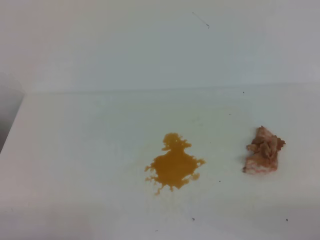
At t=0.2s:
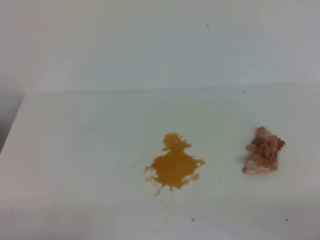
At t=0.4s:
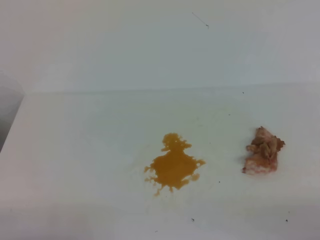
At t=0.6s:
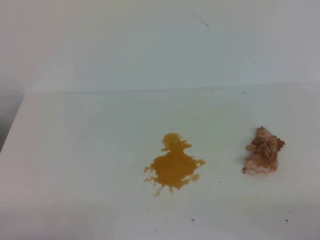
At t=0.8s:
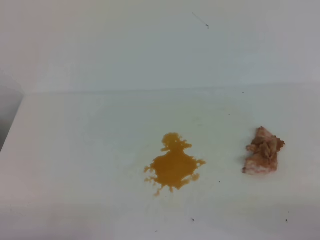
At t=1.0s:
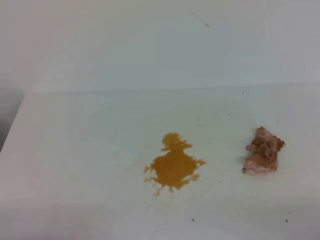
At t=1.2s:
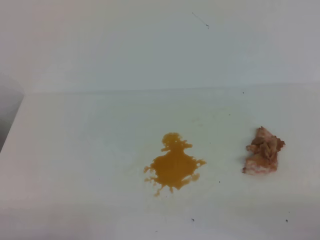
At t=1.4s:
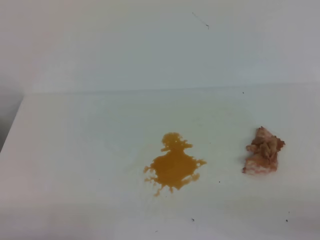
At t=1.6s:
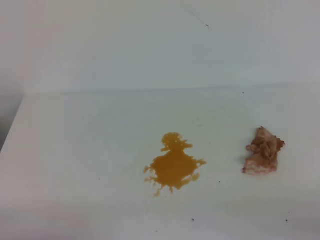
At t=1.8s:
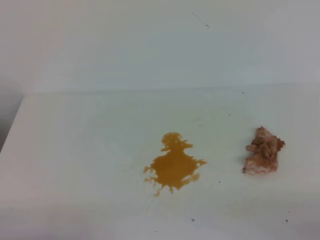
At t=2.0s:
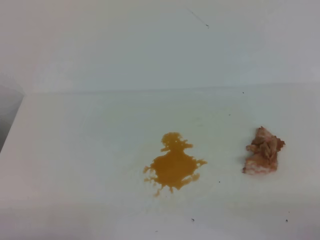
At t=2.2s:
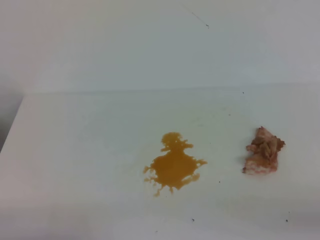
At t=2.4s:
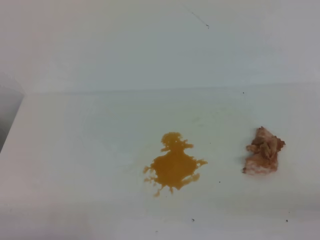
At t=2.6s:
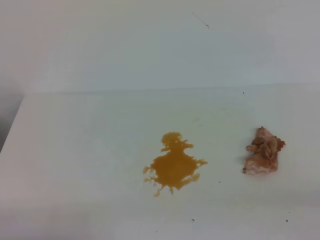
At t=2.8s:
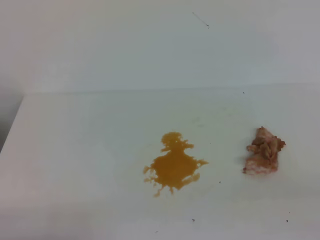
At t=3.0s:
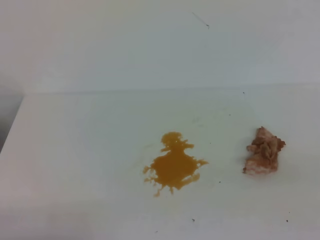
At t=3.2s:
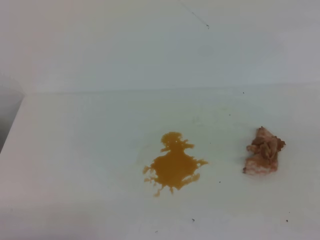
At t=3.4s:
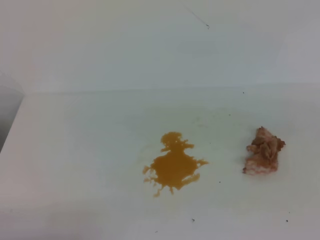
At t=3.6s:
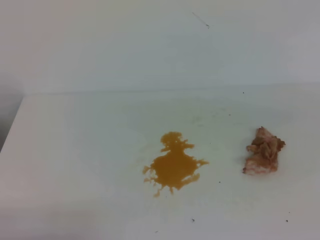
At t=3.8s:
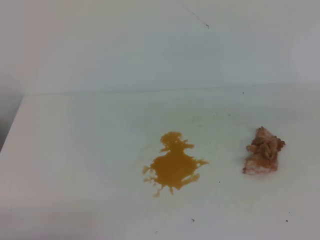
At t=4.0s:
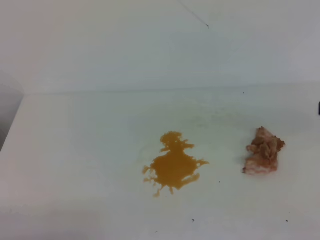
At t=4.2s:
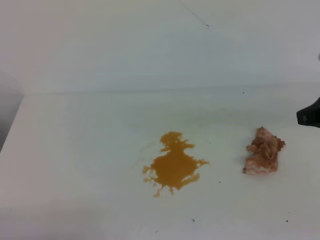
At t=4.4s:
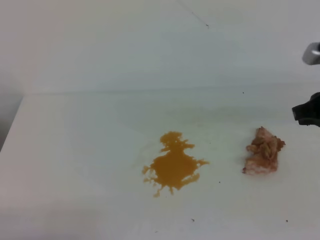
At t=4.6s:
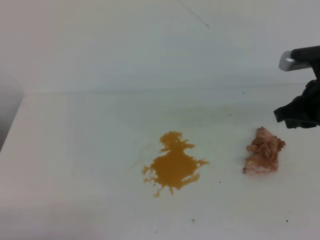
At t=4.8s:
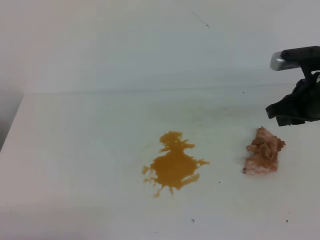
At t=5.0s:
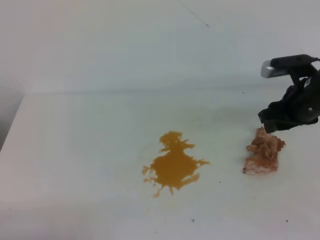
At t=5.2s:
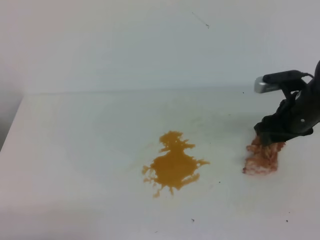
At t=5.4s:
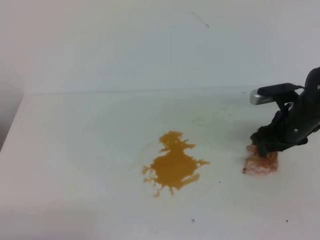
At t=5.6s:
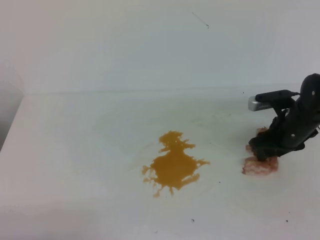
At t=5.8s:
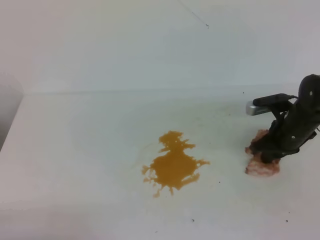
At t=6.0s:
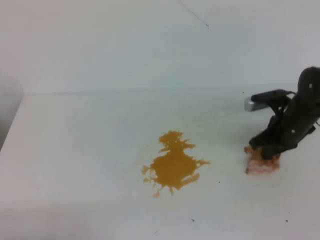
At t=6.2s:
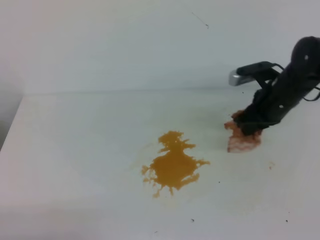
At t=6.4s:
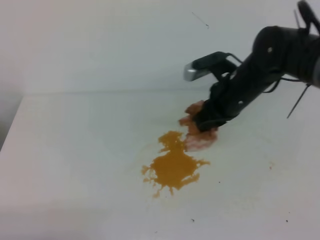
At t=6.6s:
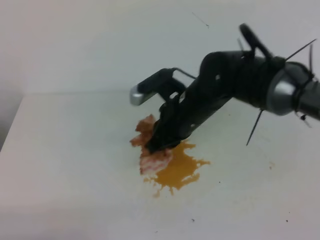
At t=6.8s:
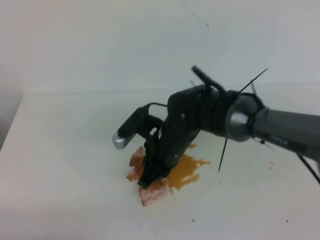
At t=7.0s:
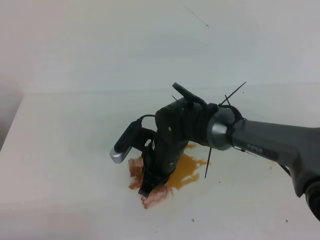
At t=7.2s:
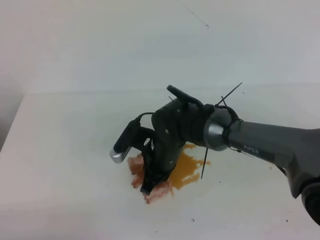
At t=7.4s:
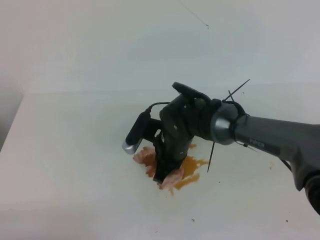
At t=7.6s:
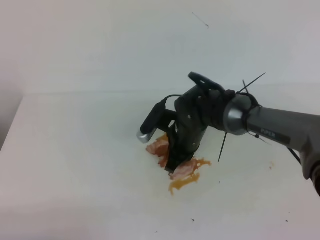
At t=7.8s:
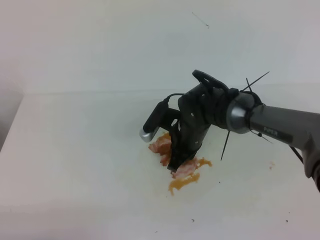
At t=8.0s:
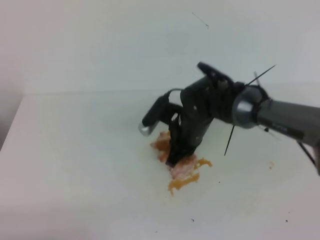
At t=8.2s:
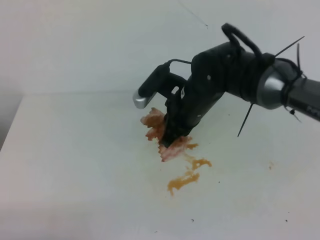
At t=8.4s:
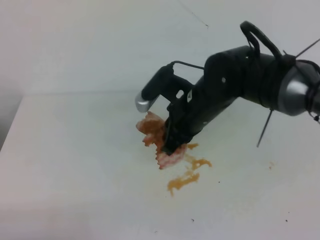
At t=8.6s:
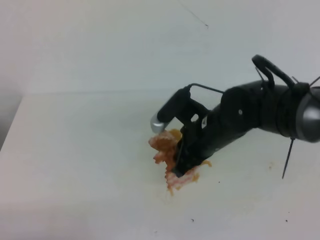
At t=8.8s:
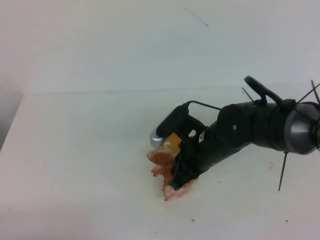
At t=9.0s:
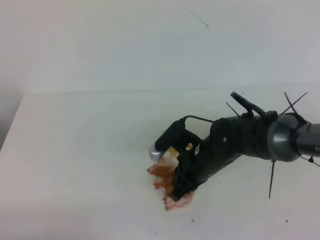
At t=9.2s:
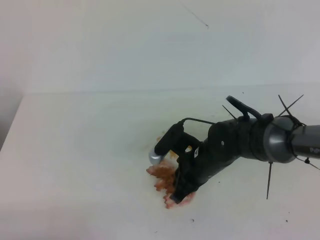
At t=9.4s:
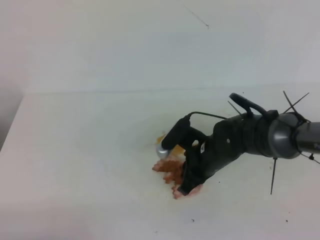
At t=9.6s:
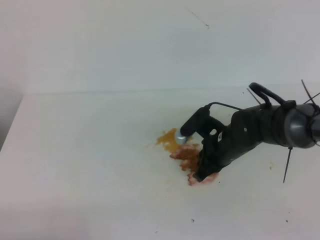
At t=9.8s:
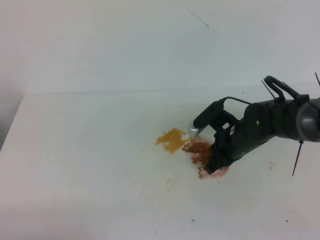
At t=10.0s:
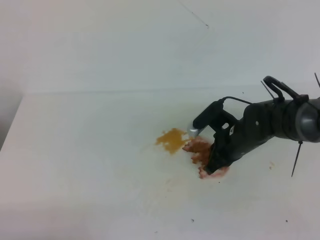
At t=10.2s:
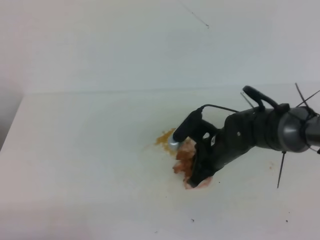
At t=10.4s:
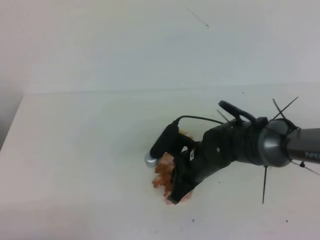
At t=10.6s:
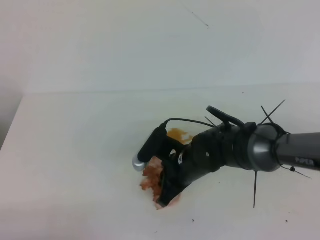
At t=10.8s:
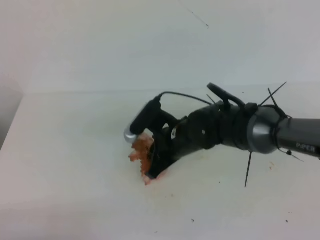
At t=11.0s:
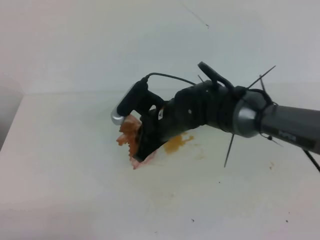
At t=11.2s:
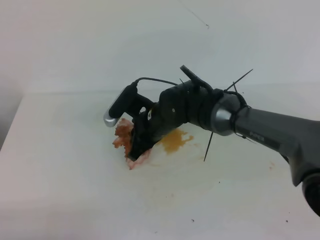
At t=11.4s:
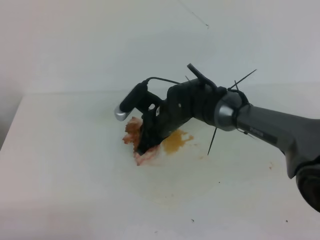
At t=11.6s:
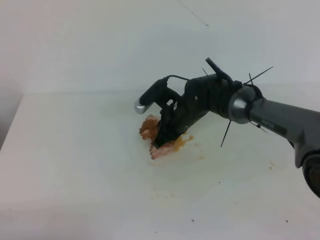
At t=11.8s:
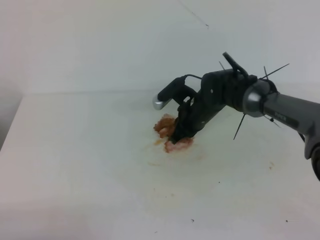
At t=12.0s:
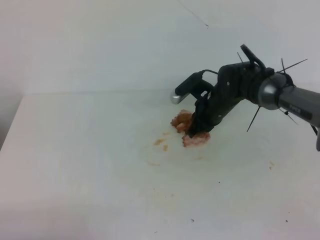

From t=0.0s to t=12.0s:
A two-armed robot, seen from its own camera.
From t=3.0s to t=4.4s: The right gripper heads forward, covering about 25 cm.
From t=4.4s to t=6.0s: The right gripper moves downward and forward, roughly 20 cm, and opens, then closes again.
From t=6.0s to t=7.6s: The right gripper heads to the left, covering approximately 20 cm.
From t=7.6s to t=9.0s: The right gripper goes approximately 5 cm backward, and goes upward and returns, roughly 10 cm each way.
From t=10.4s to t=12.0s: The right gripper travels forward by about 10 cm.

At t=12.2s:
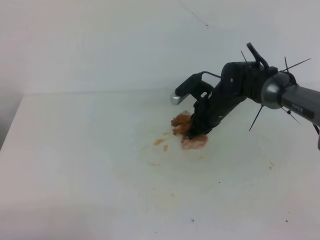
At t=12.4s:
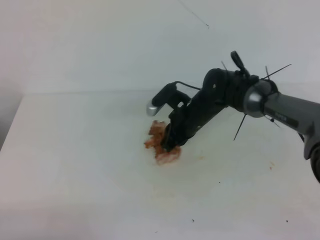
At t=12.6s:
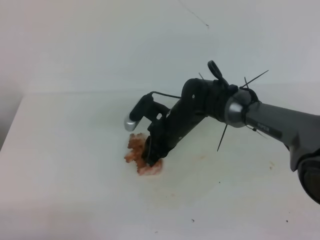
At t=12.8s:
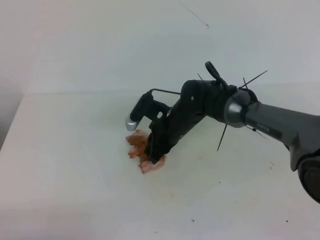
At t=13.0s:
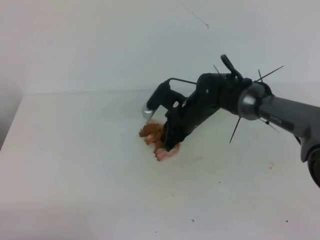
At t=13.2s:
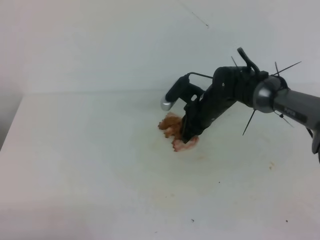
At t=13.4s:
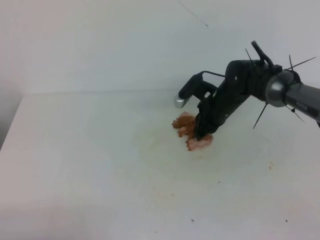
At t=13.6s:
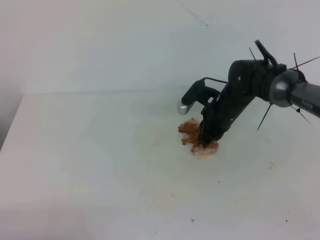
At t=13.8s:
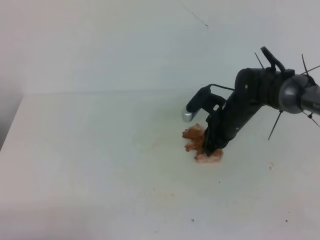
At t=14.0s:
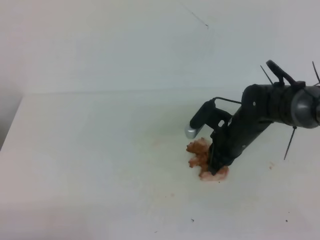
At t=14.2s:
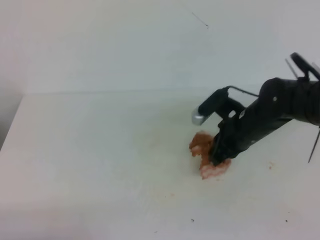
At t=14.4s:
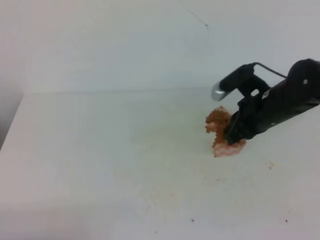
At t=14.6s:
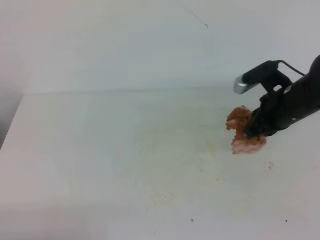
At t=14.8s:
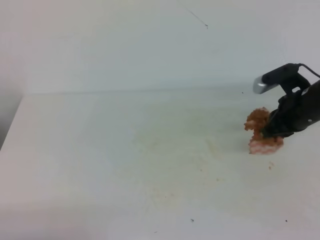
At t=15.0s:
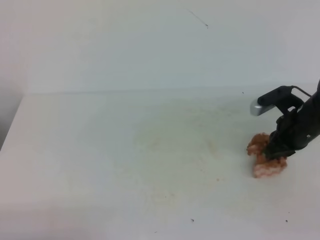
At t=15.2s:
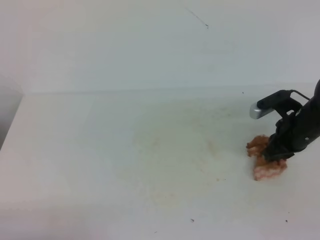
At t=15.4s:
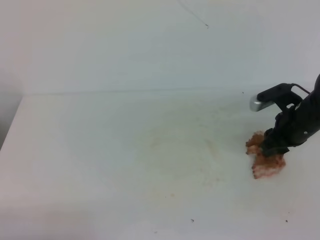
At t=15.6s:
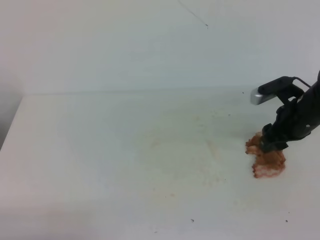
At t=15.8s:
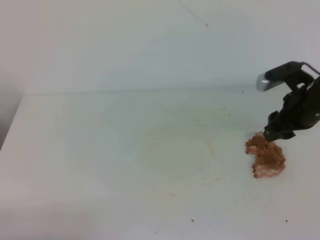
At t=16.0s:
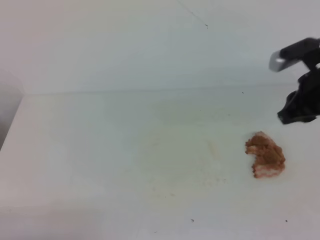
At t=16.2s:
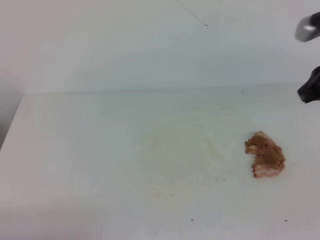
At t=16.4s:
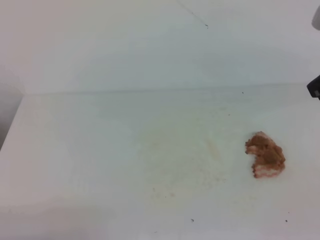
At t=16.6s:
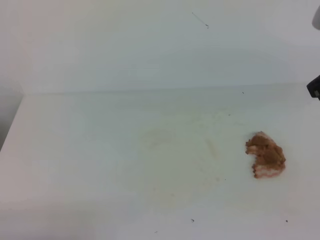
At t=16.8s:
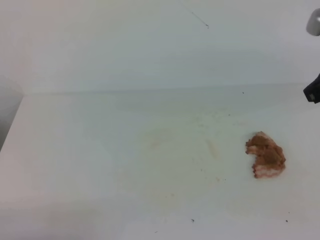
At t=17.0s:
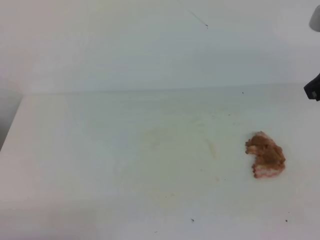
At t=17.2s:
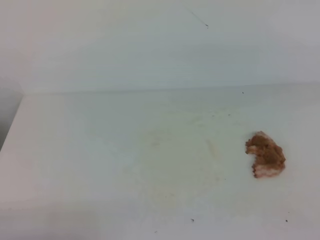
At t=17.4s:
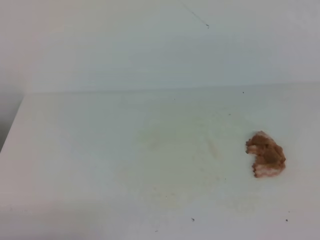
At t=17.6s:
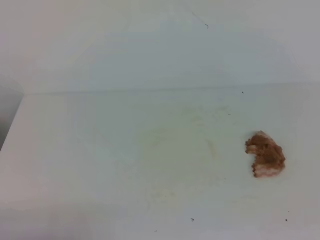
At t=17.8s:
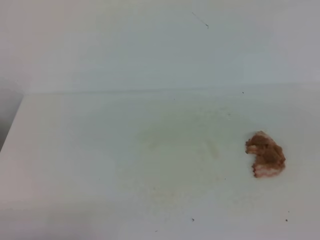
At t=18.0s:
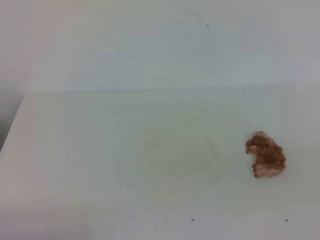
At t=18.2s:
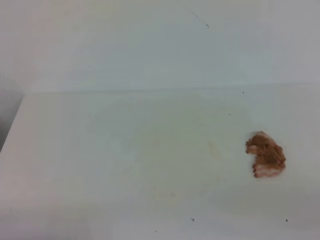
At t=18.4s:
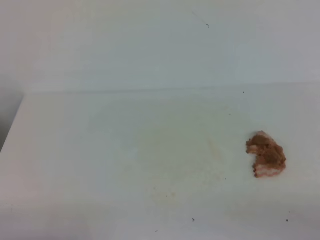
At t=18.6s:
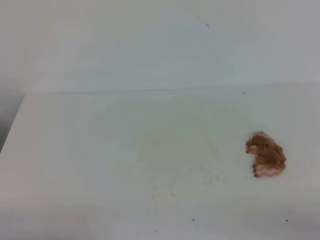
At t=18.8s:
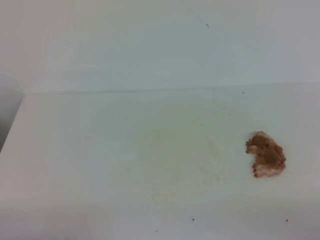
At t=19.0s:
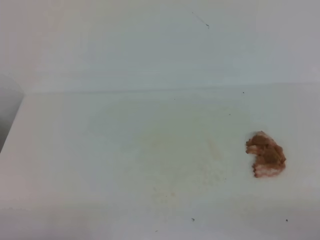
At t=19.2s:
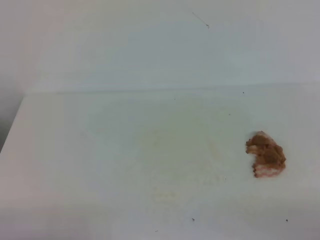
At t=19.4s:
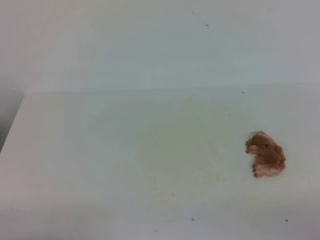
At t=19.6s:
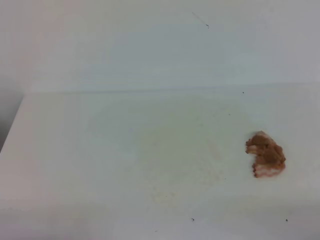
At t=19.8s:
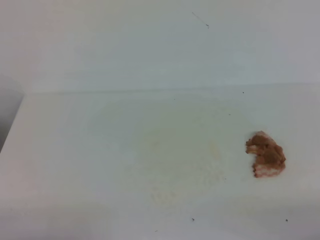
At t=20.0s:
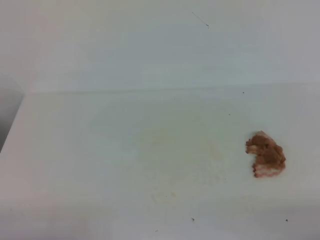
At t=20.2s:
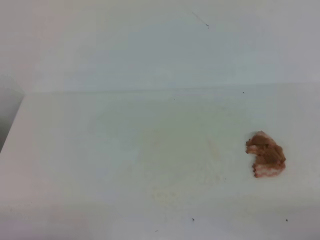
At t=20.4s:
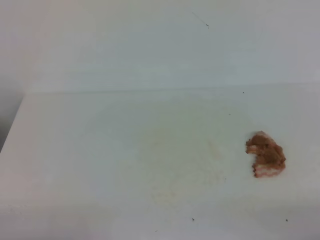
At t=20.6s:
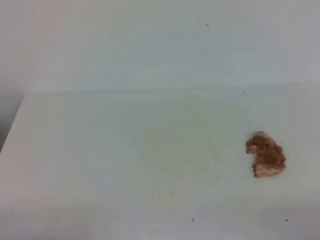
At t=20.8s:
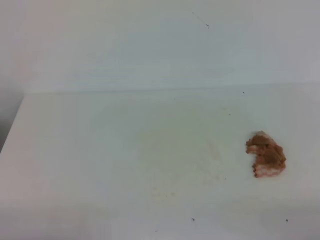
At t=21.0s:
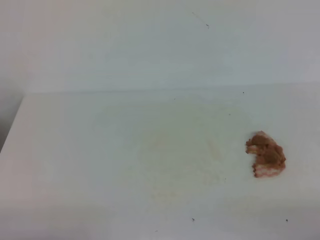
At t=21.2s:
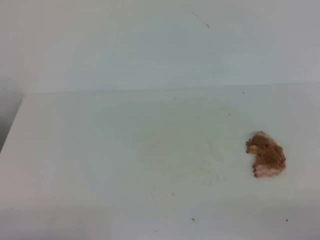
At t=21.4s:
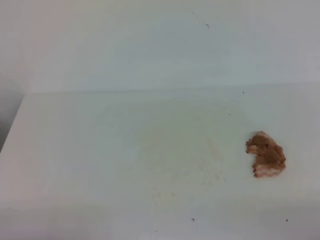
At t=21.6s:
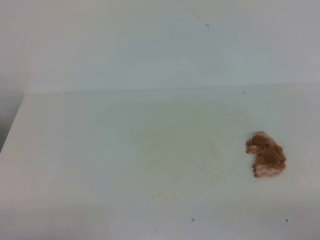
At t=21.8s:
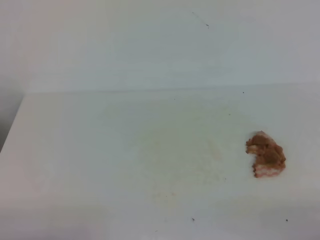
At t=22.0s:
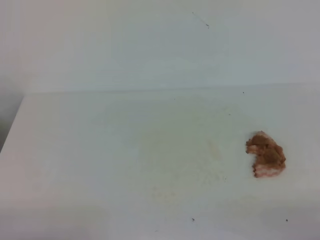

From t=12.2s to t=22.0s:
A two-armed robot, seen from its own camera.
From t=12.2s to t=13.6s: The right gripper reaches about 5 cm to the left, then returns.
From t=13.6s to t=15.0s: The right gripper shifts some 15 cm to the right and backward.
From t=15.0s to t=16.4s: The right gripper goes approximately 20 cm upward and backward, and opens, then closes once more.
From t=19.2s to t=22.0s: Both grippers stay about where they are.

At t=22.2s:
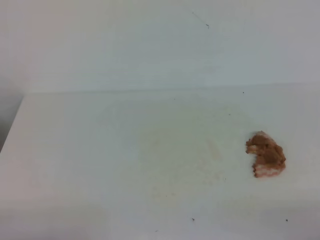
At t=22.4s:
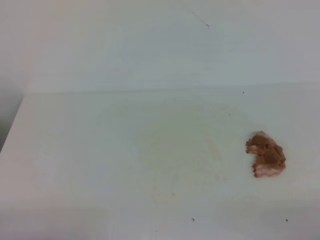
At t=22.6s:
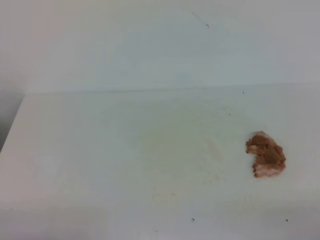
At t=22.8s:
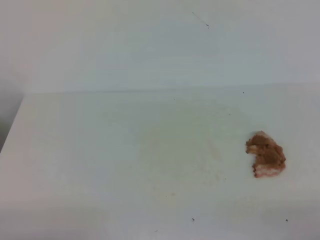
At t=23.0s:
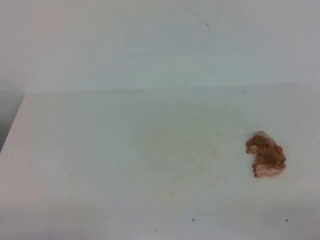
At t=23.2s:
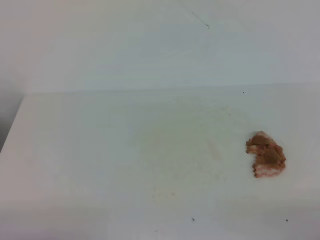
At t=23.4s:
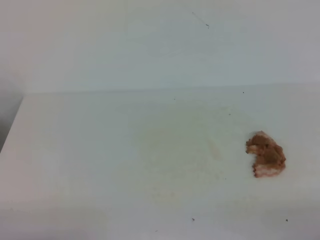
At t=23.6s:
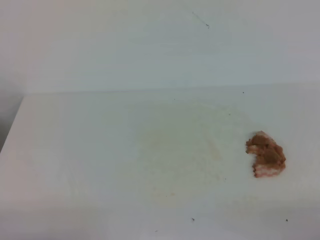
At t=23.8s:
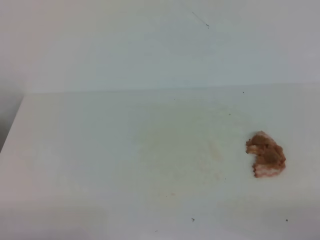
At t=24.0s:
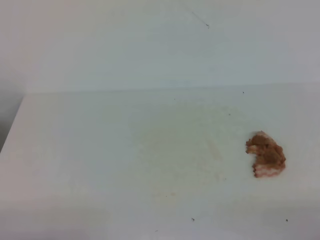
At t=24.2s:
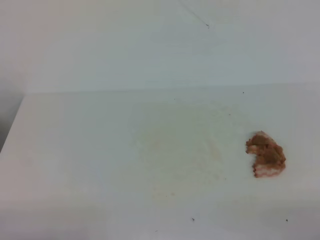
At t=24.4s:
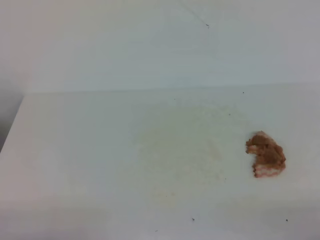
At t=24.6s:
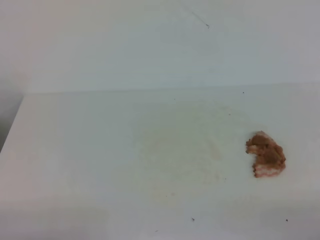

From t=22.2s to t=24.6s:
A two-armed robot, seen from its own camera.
From t=22.2s to t=24.6s: The two grippers keep their place.
